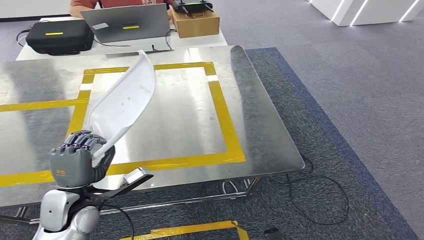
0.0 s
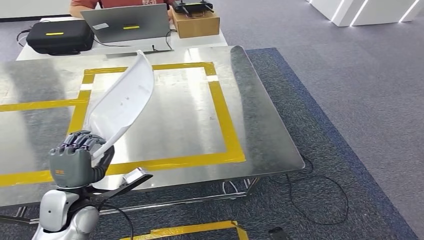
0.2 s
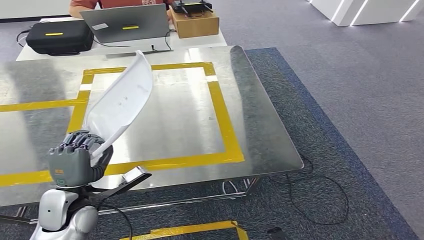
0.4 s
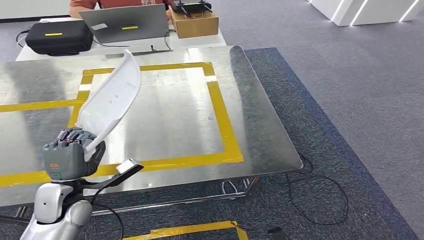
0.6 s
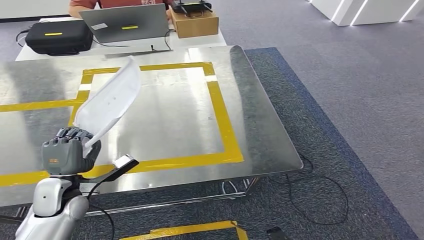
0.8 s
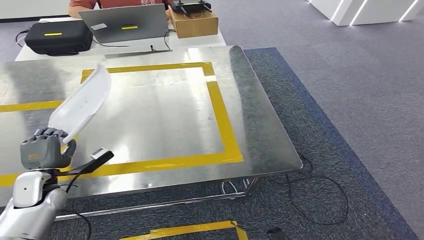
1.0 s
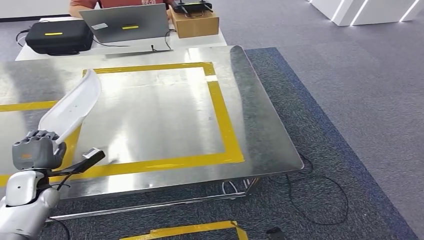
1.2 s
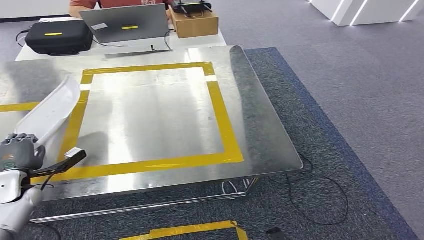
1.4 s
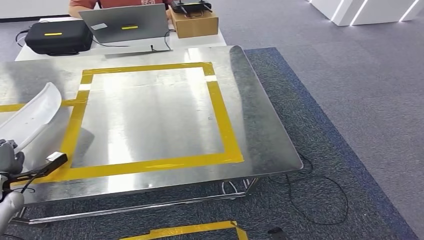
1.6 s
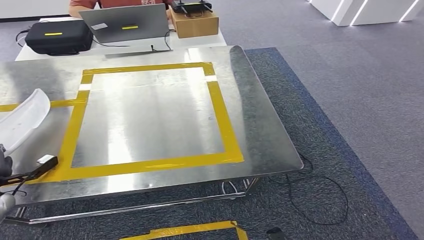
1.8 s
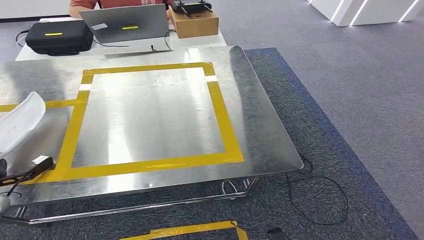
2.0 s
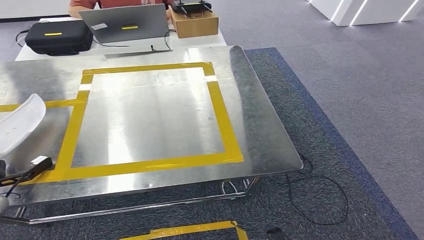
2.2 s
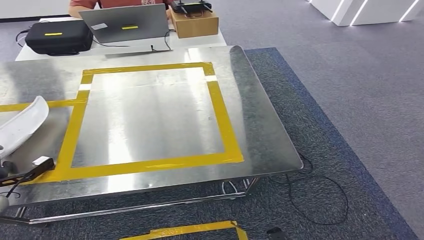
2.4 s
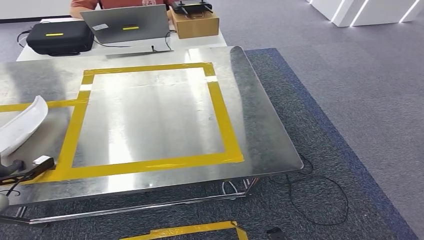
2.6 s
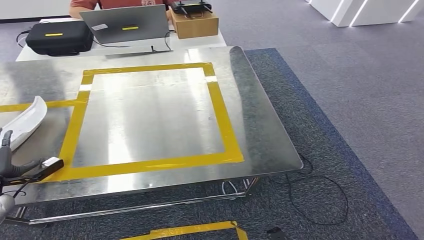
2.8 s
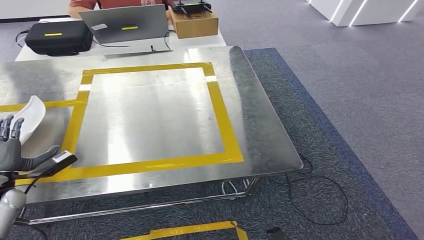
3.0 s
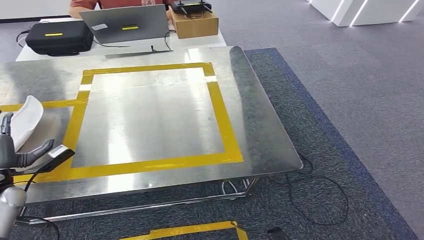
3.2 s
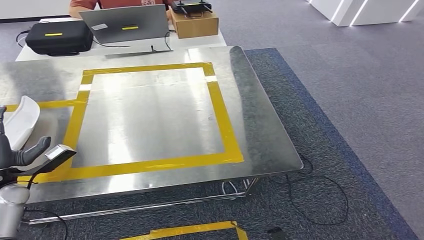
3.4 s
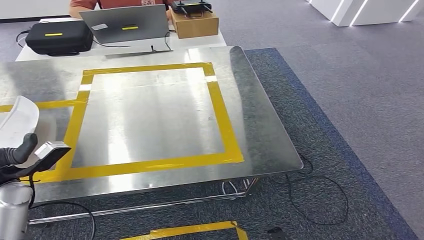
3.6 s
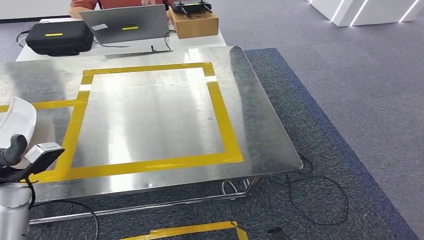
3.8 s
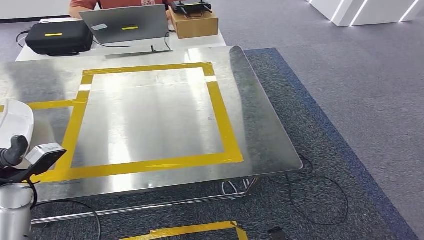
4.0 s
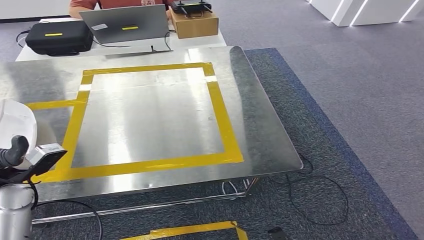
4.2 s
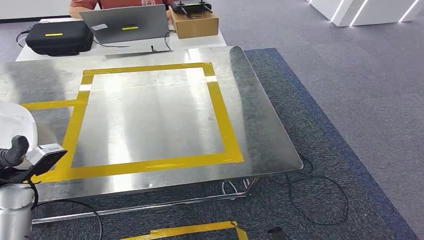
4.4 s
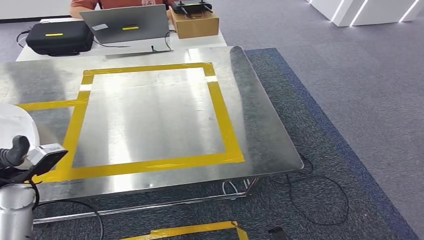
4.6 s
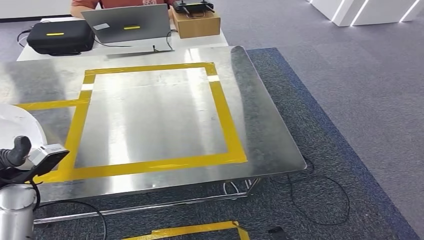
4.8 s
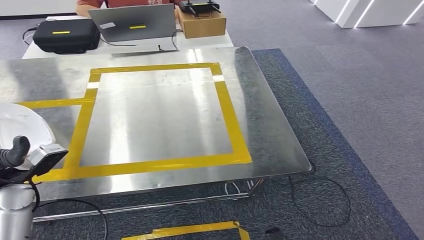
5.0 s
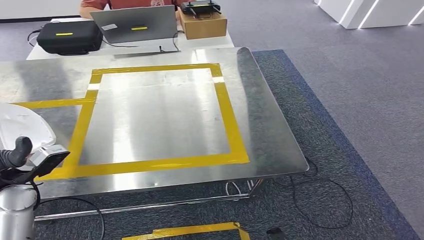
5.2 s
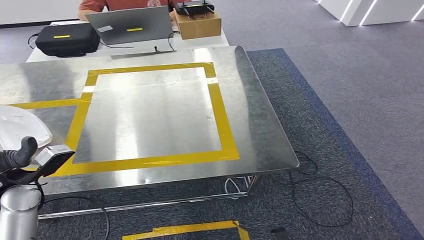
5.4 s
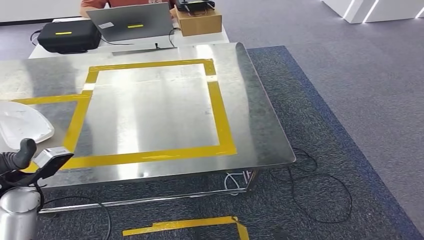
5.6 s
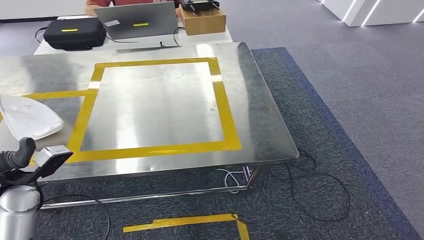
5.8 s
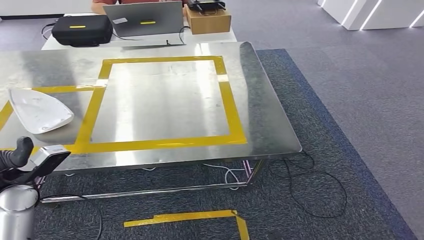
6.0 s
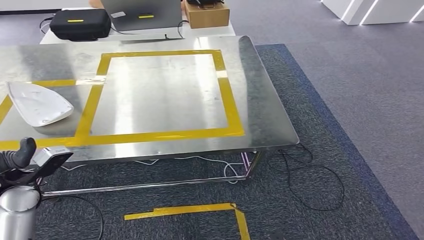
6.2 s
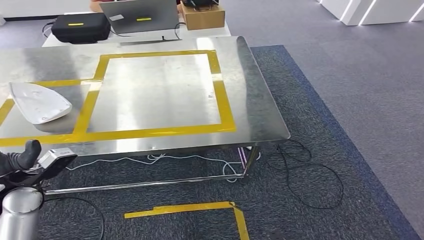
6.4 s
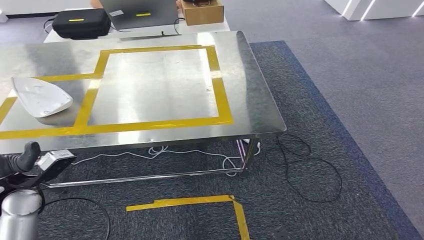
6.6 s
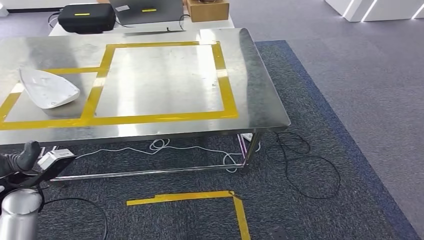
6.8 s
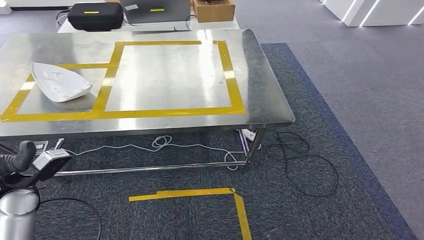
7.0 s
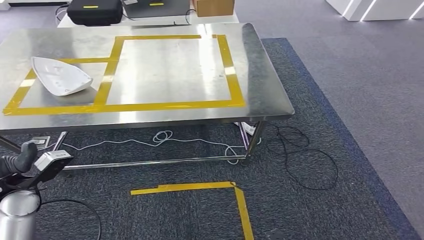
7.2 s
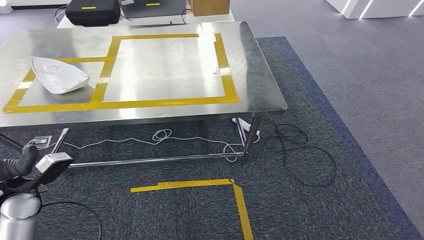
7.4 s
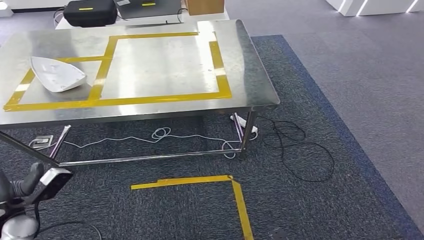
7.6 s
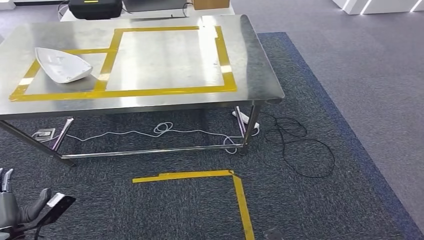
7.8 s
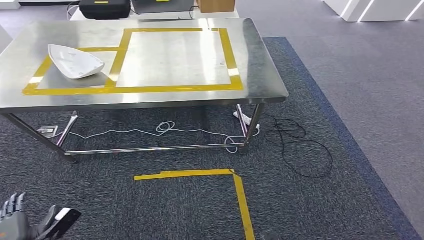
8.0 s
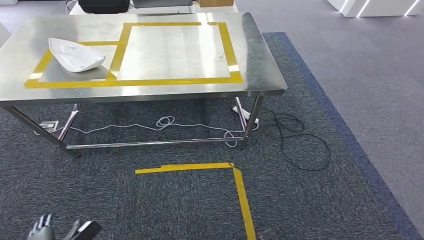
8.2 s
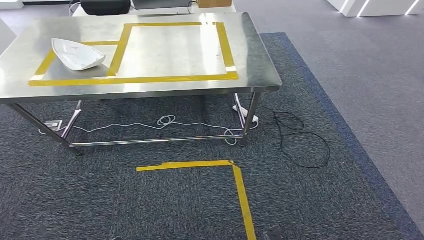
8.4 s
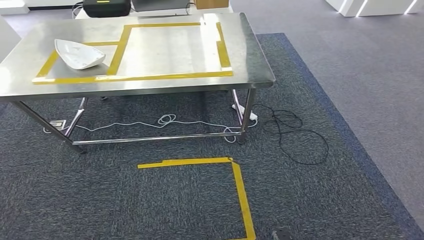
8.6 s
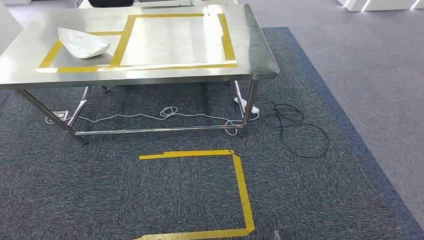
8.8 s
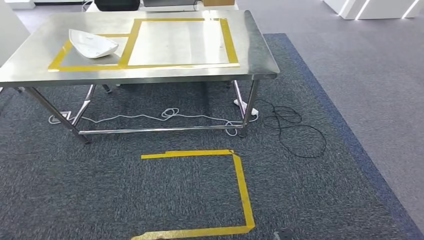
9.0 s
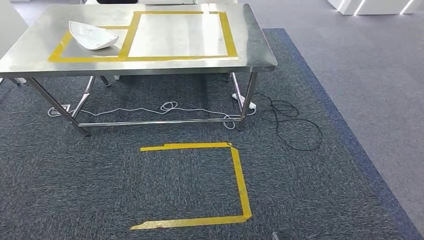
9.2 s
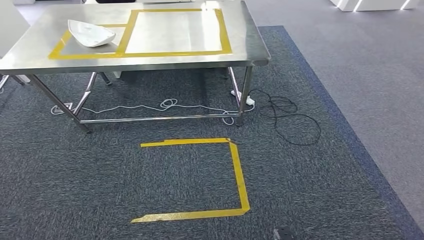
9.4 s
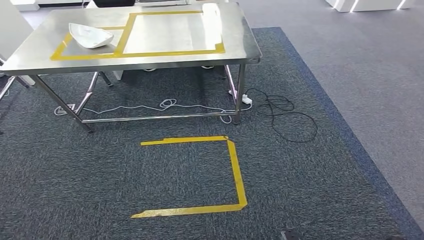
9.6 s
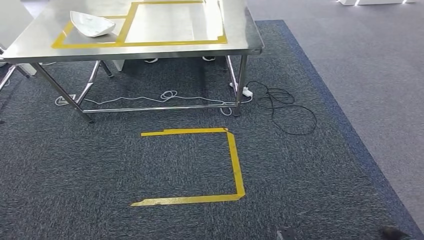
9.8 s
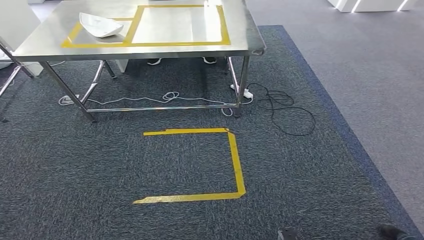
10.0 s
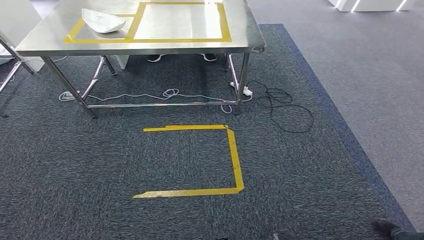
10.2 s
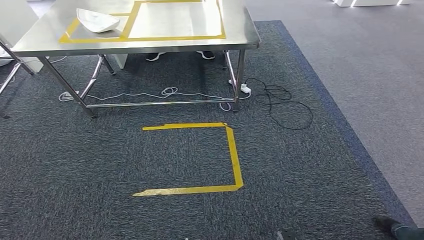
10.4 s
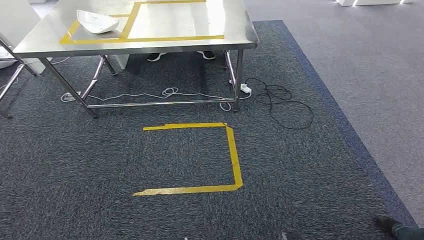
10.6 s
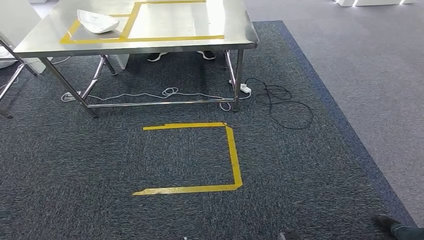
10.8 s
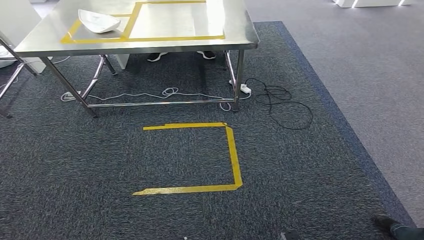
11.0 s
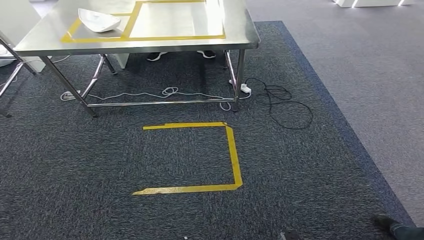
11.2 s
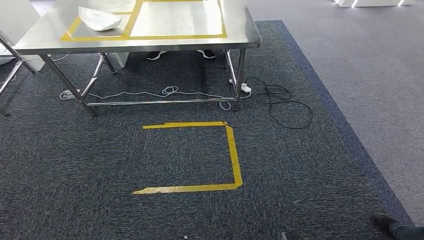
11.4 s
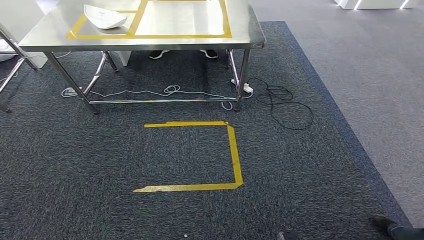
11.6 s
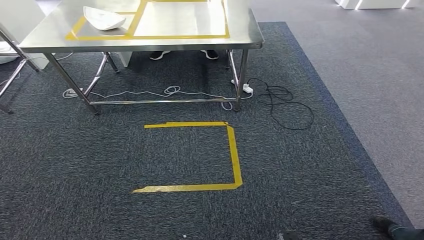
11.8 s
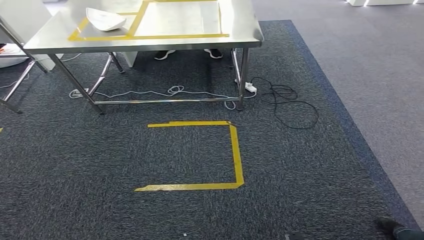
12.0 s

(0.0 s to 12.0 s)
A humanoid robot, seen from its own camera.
Step, 0.0 s - 6.0 s: Insert the small component into the corresponding slot on the workbench.
0.0 s - 1.6 s: The left hand shifts some 20 cm to the left and forward.
1.6 s - 3.0 s: The hands make only small movements.
3.0 s - 4.4 s: The left hand heads upward and to the right, covering about 10 cm.
10.4 s - 12.0 s: Both hands stay put.

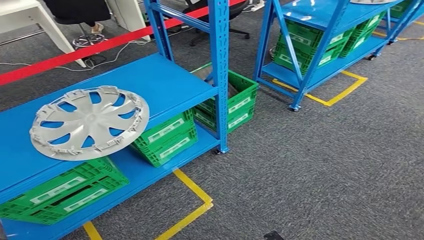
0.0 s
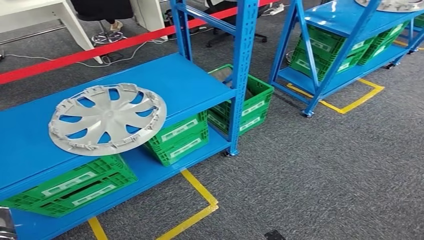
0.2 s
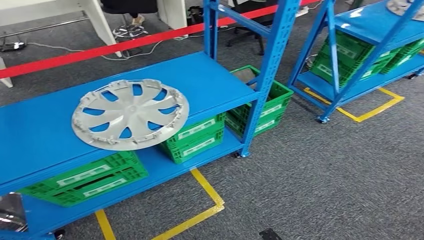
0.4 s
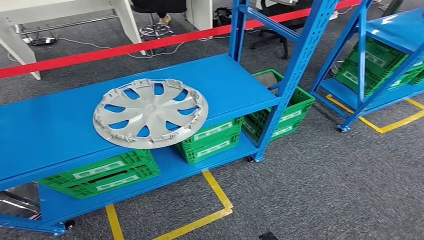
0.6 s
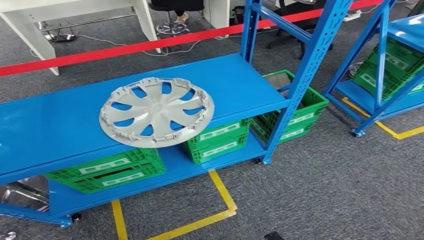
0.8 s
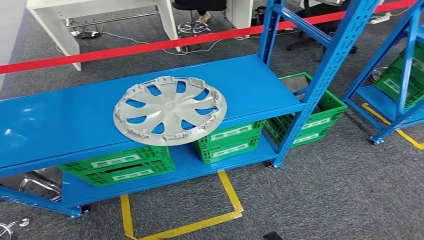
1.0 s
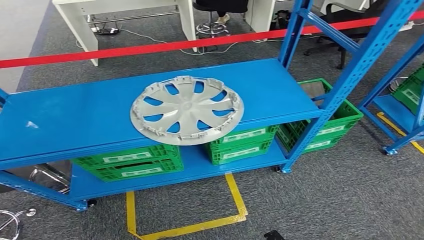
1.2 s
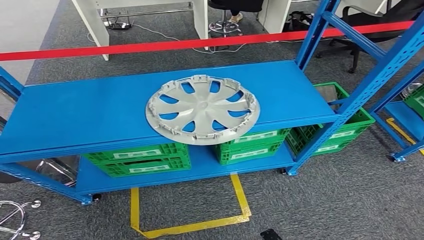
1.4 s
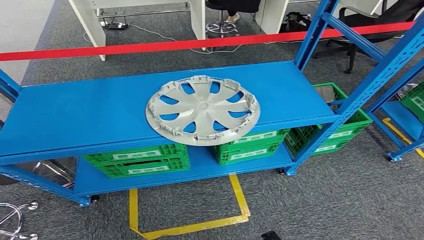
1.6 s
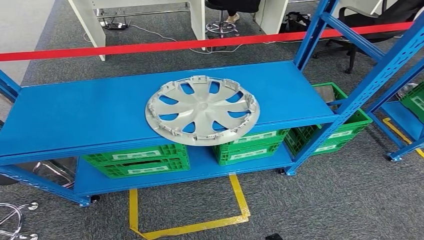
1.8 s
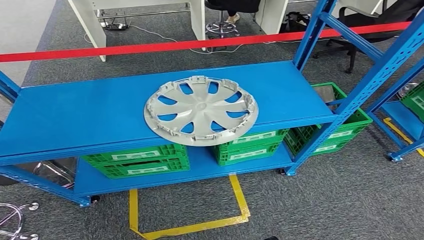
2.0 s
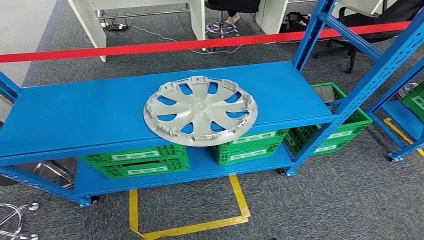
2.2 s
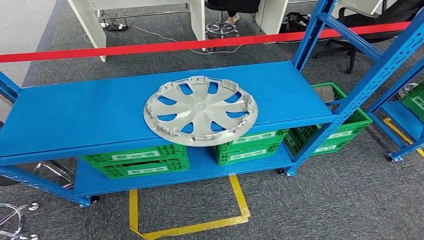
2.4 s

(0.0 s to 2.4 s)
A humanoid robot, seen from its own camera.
Step, 0.0 s - 2.4 s: Return to the initial position at the workbench.

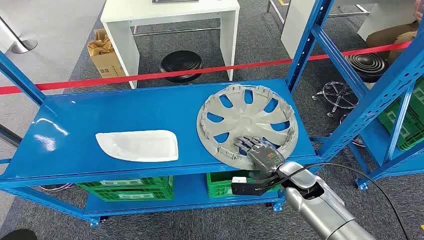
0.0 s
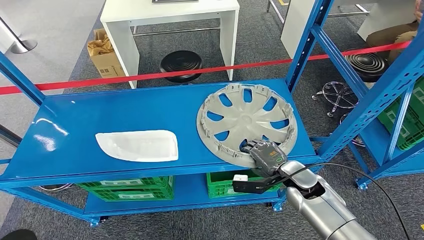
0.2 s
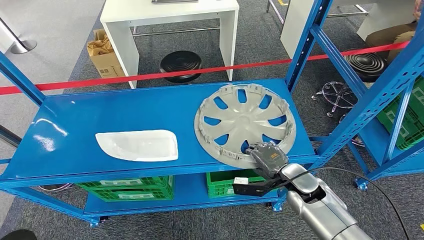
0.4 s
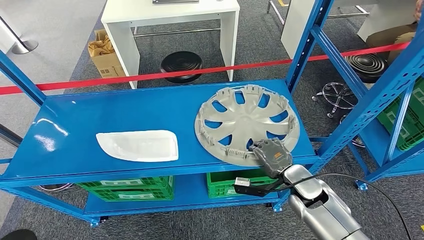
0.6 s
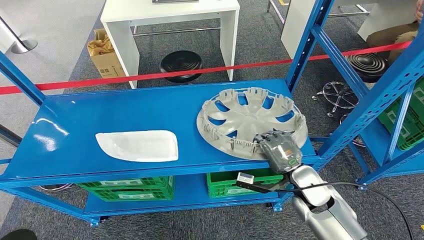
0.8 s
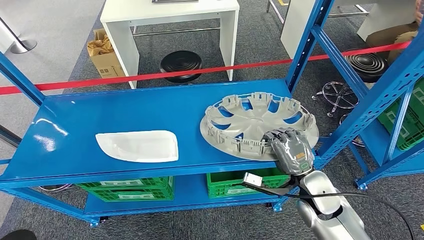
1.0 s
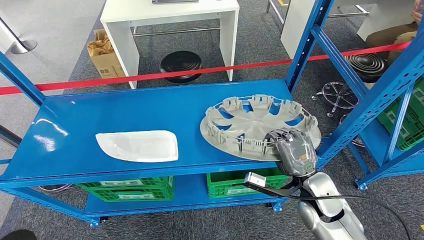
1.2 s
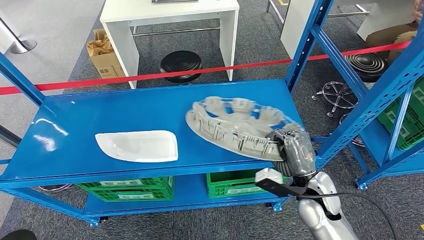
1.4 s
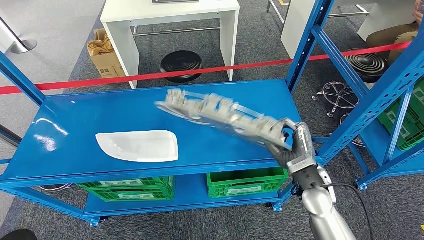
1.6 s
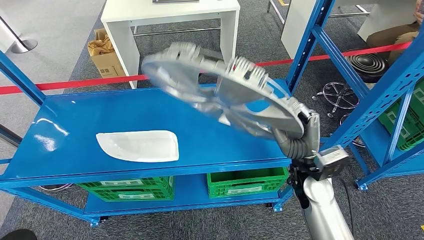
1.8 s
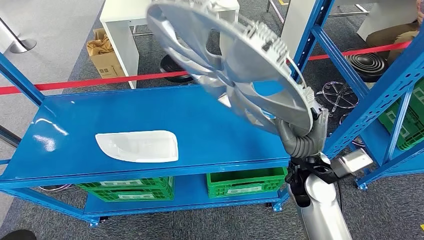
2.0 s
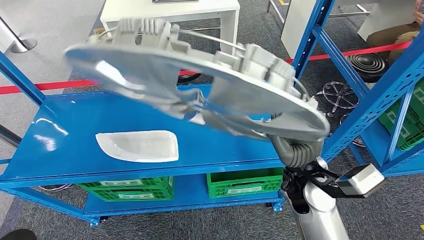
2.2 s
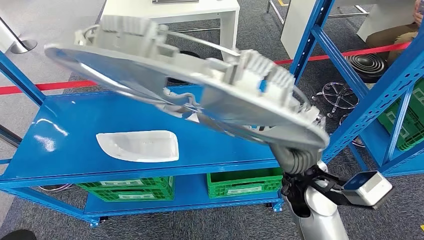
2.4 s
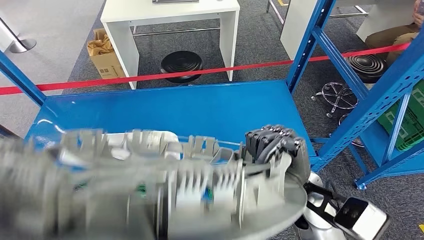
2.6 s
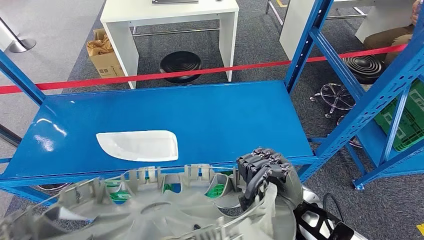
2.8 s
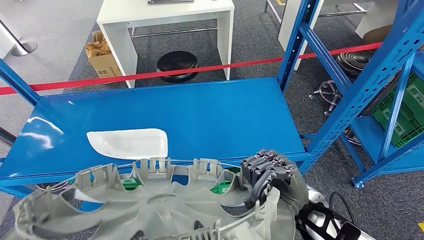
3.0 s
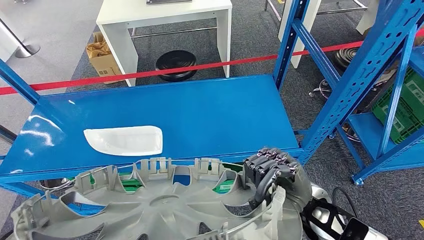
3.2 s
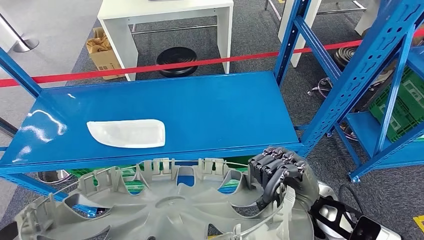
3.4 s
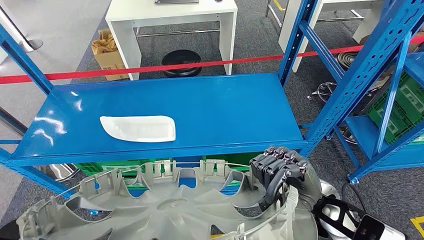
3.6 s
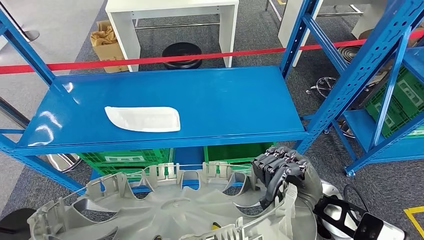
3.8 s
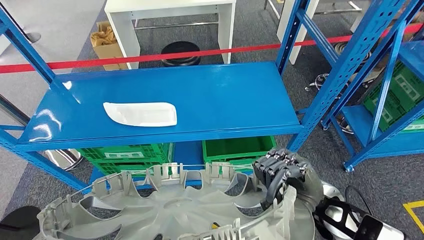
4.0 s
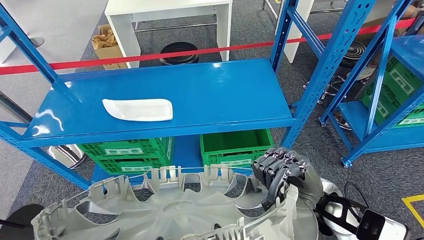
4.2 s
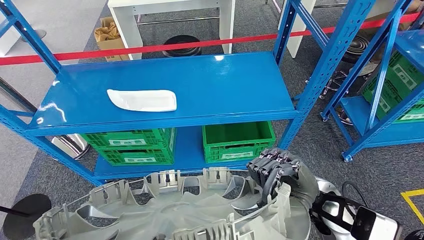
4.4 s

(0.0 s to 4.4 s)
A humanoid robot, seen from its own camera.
Step, 0.0 s - 2.4 s: Pick up the small component from the shelf.
